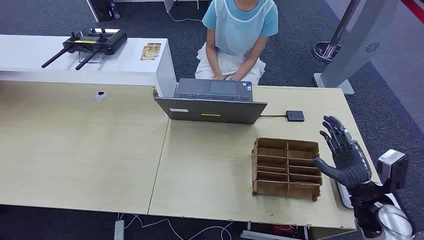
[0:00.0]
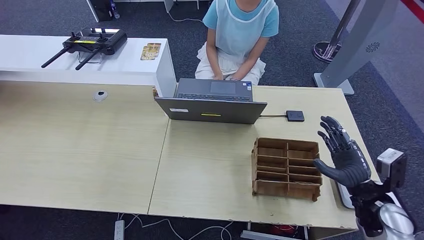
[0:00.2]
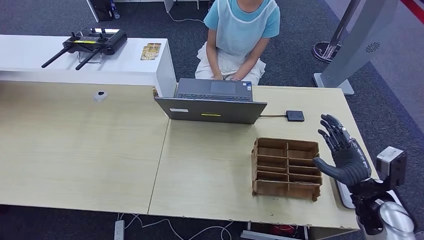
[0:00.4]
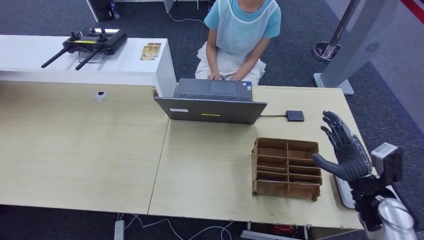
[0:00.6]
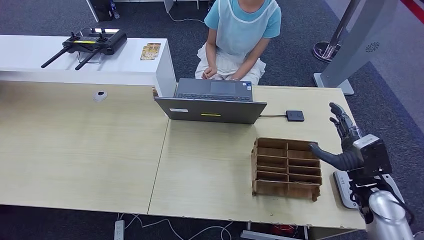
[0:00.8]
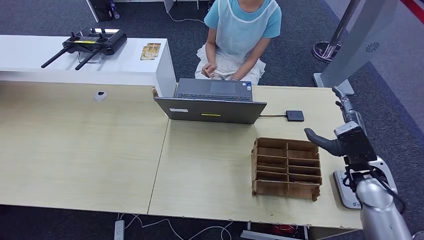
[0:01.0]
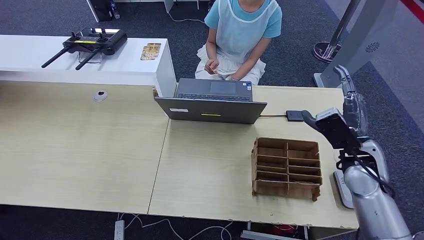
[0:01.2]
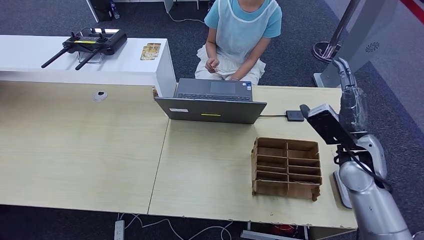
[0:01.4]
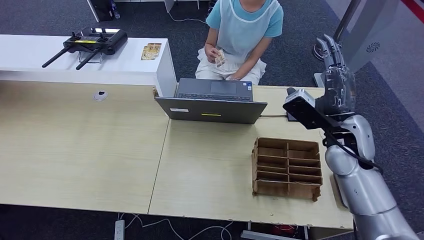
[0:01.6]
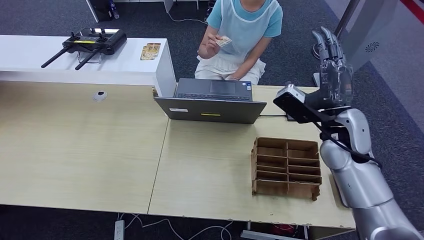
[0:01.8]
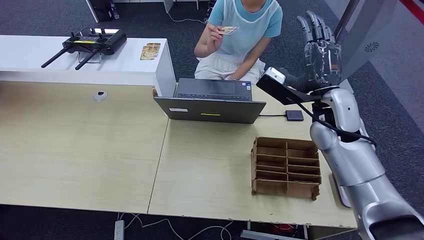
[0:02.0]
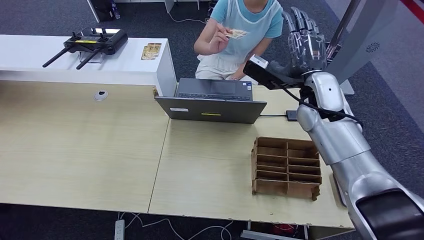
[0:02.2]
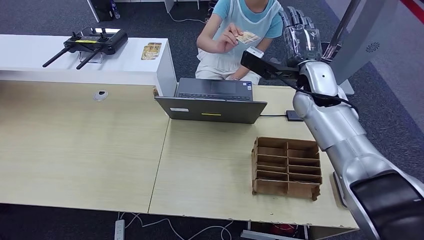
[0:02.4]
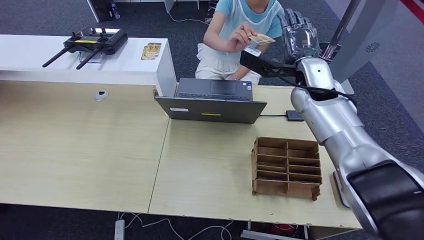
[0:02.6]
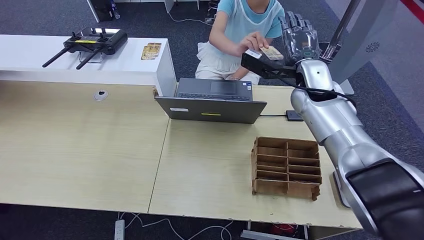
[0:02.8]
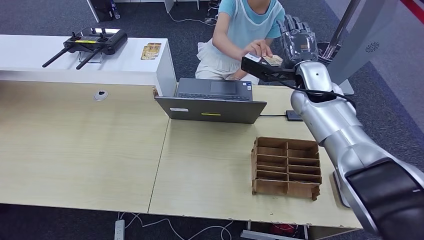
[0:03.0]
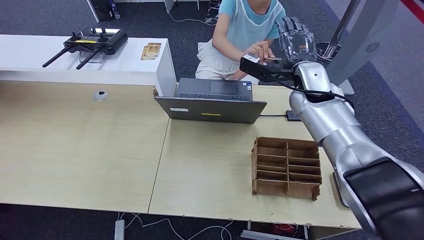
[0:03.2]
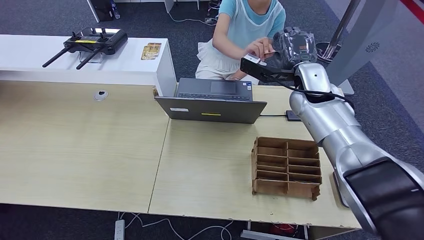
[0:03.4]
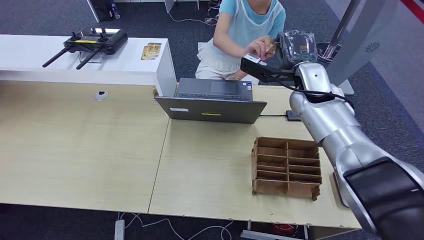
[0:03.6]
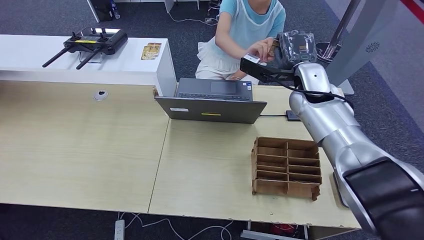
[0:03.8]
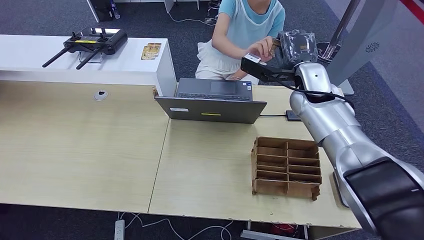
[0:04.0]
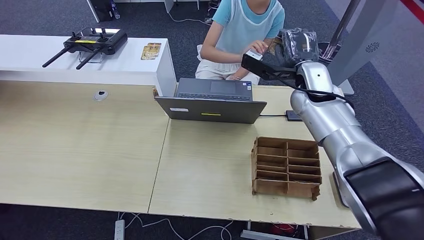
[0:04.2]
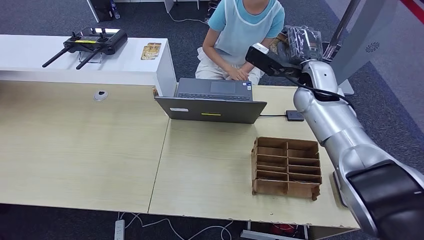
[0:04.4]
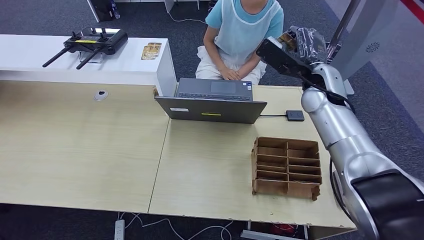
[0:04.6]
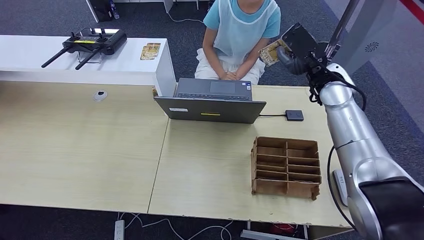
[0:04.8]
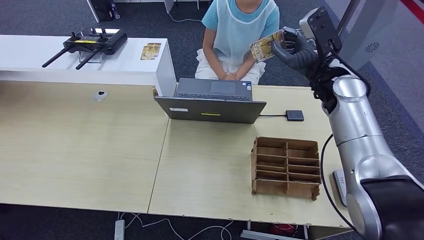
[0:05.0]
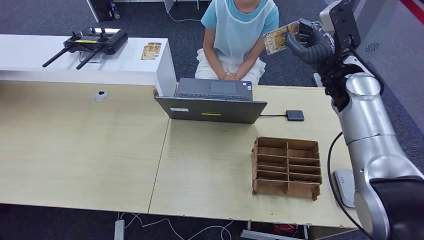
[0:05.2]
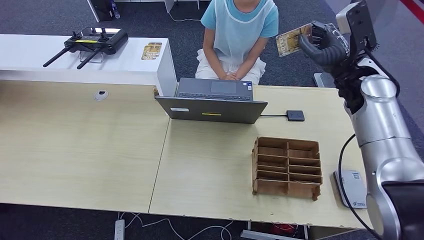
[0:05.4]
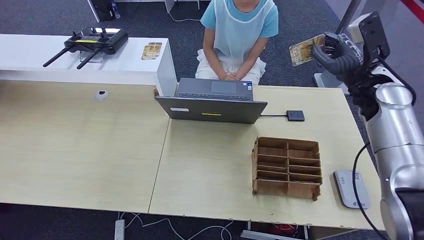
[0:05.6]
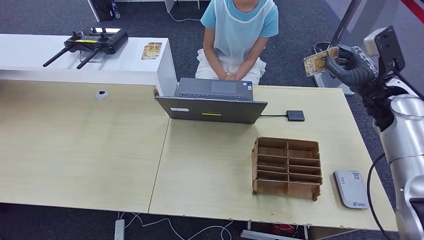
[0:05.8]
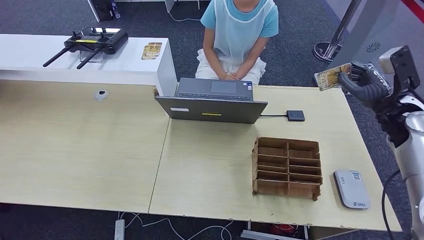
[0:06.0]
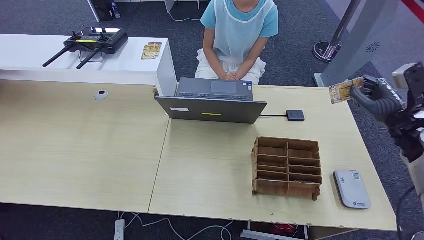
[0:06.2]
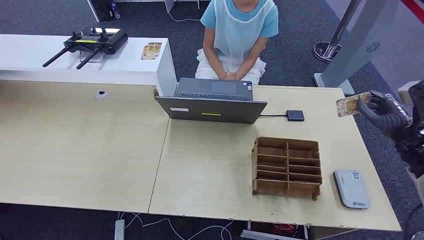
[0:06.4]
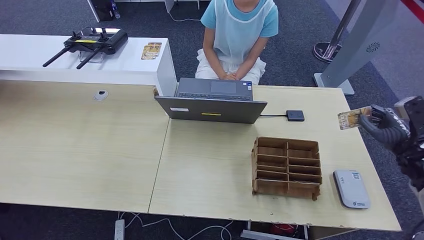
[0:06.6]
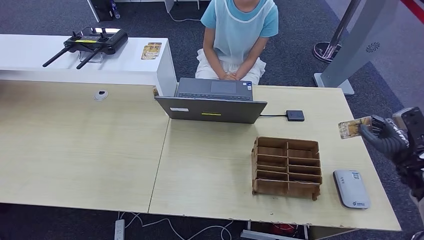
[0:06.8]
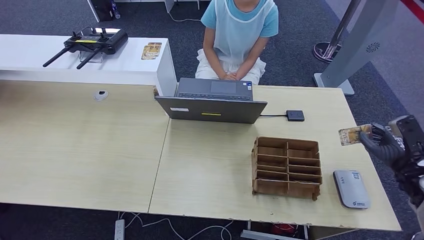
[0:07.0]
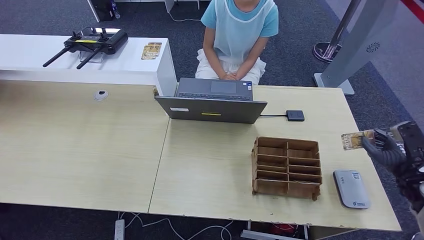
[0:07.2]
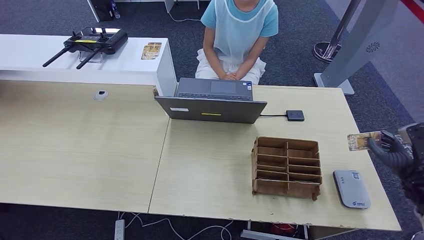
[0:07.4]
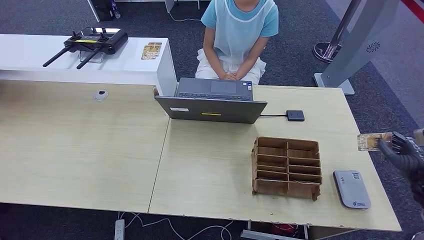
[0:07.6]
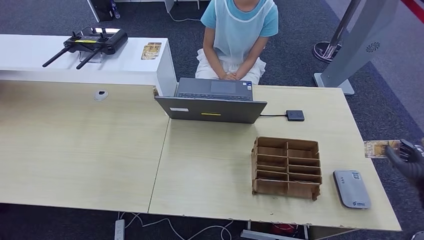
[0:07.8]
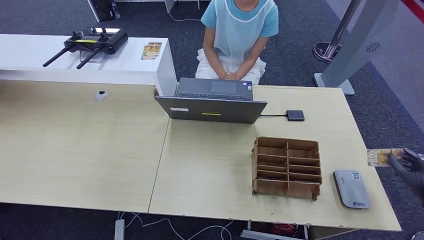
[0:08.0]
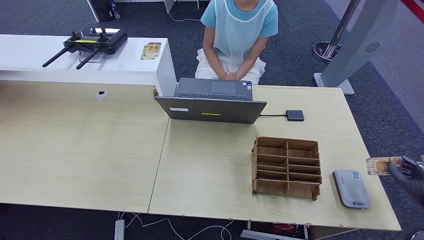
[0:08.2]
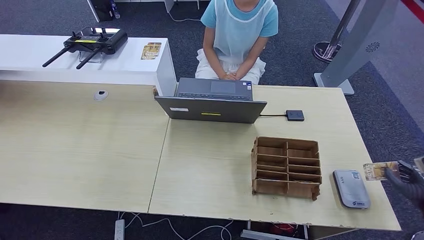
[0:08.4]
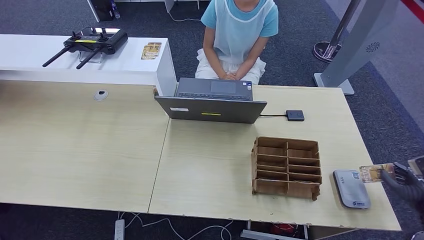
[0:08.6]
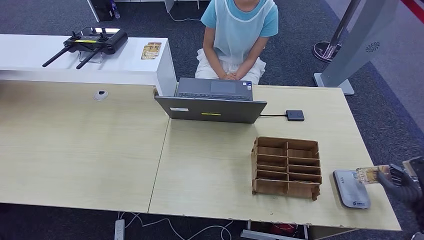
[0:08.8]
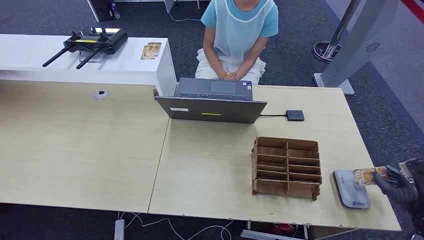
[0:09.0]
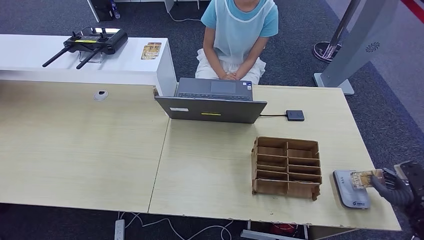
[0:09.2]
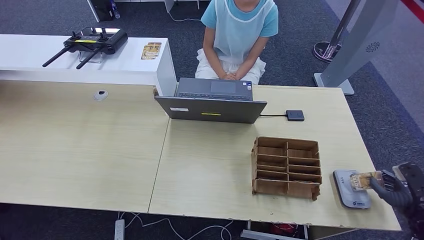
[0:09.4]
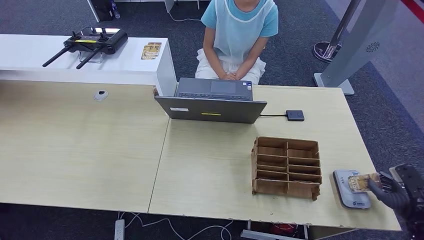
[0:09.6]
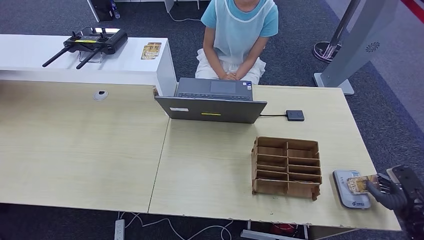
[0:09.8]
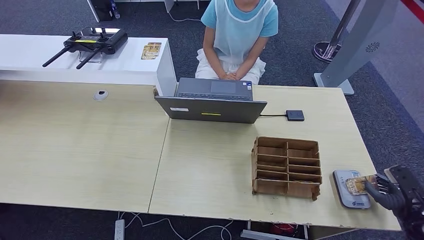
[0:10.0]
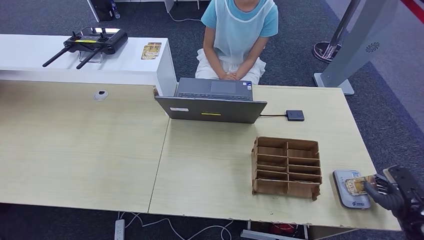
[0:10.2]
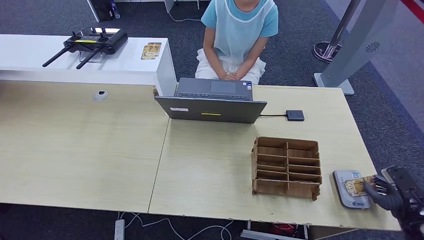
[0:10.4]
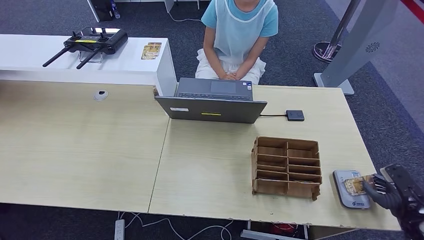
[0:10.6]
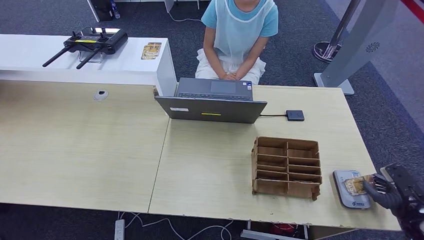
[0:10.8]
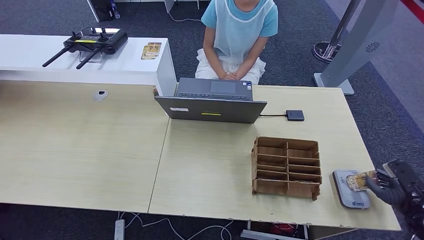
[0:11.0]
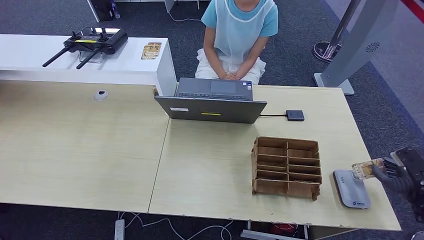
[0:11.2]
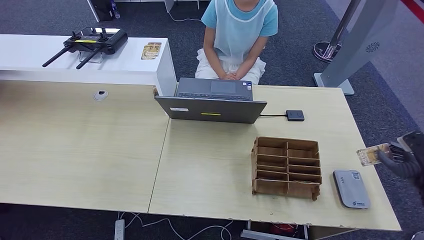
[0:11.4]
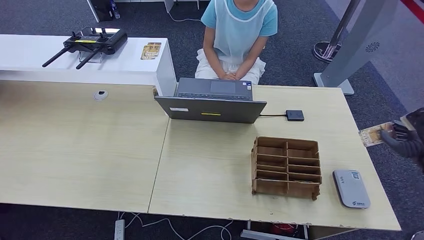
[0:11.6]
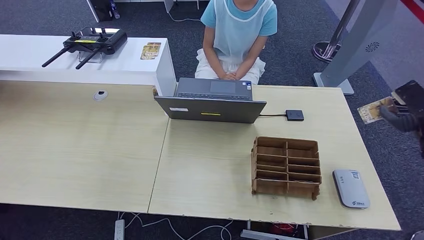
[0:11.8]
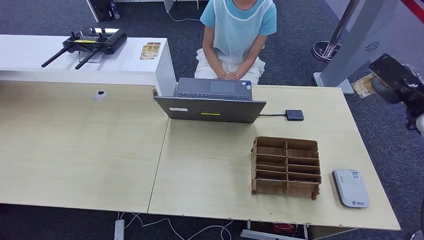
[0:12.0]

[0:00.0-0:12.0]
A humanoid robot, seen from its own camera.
Step, 0:00.0 to 0:05.4: Take the ID card from the person's hand.
Step, 0:05.6 to 0:09.8: Place the ID card on the card reader.
0:01.6 to 0:03.0: The right hand moves forward and to the left, some 15 cm.
0:03.0 to 0:04.4: The hands make only small movements.
0:04.4 to 0:06.0: The right hand is displaced to the right by about 20 cm.
0:06.0 to 0:07.6: The right hand shifts about 20 cm backward, downward and to the right.
0:07.6 to 0:09.0: The right hand moves backward, some 5 cm.
0:09.0 to 0:10.4: The hands make only small movements.
0:10.4 to 0:12.0: The right hand is displaced upward and forward by roughly 30 cm.

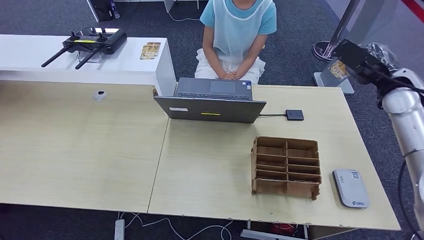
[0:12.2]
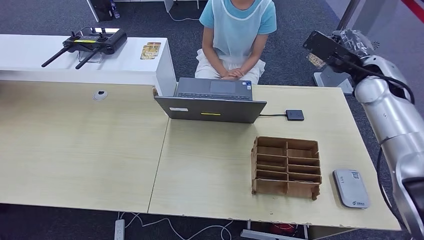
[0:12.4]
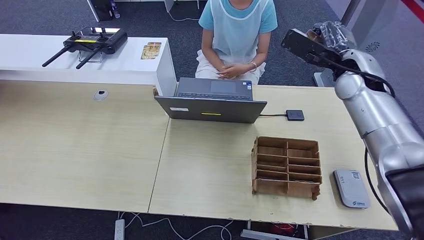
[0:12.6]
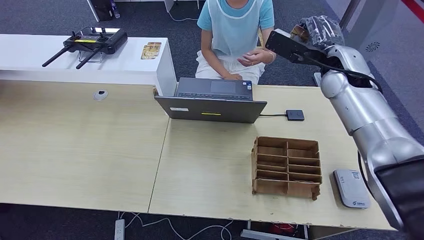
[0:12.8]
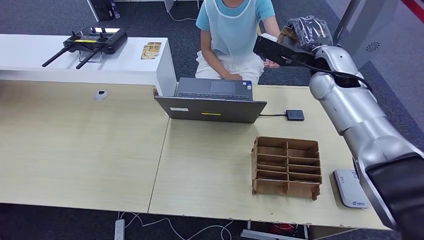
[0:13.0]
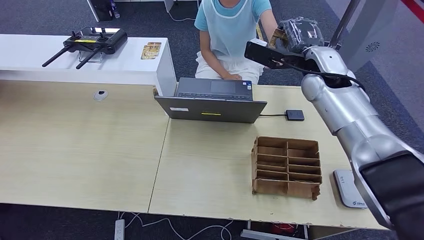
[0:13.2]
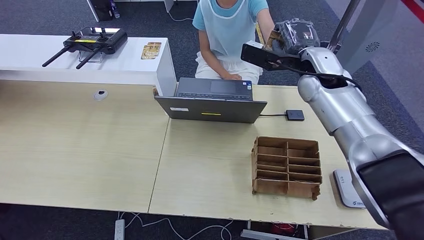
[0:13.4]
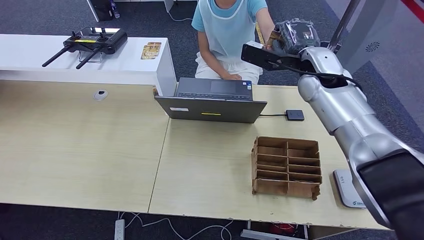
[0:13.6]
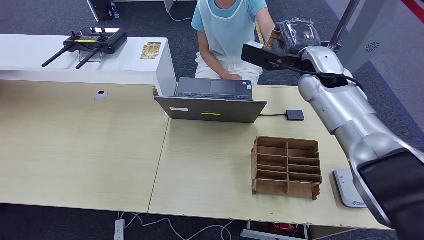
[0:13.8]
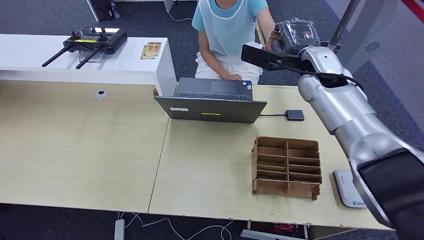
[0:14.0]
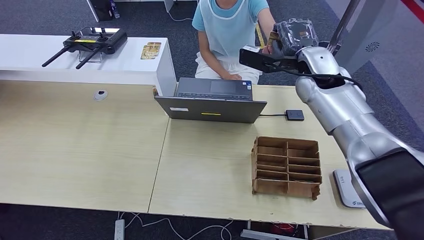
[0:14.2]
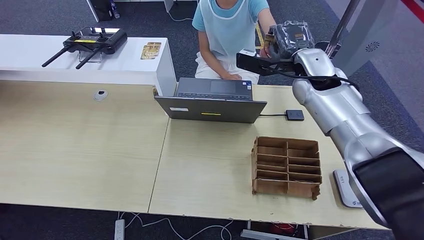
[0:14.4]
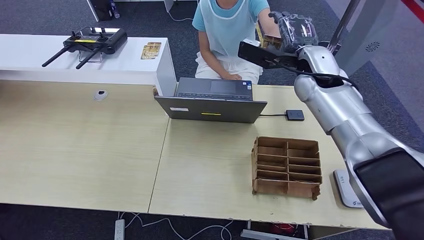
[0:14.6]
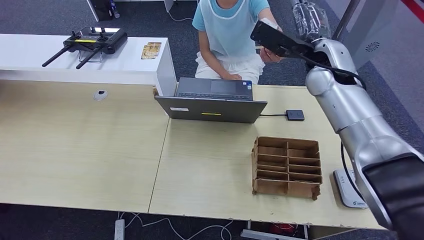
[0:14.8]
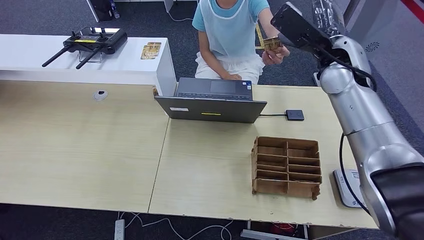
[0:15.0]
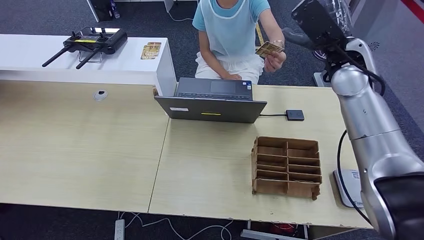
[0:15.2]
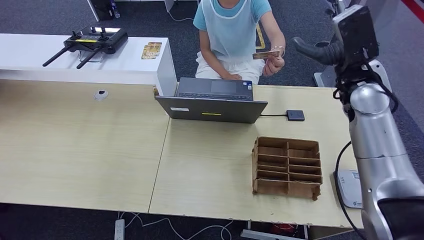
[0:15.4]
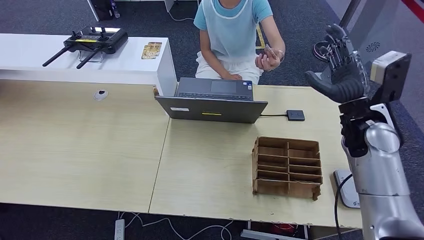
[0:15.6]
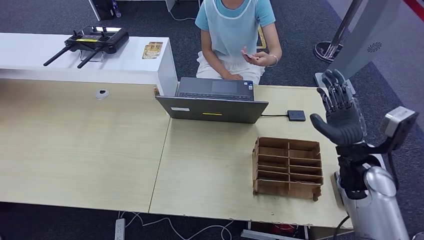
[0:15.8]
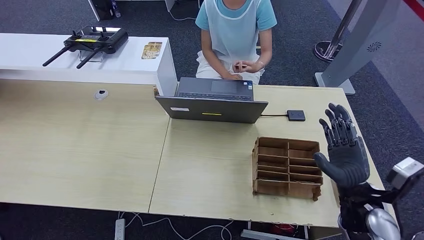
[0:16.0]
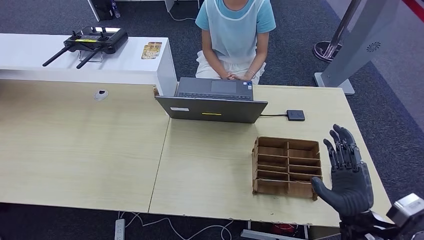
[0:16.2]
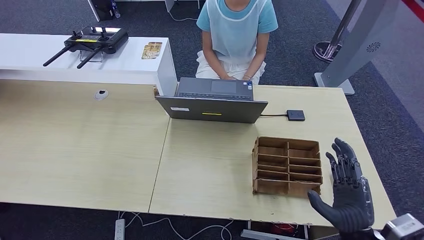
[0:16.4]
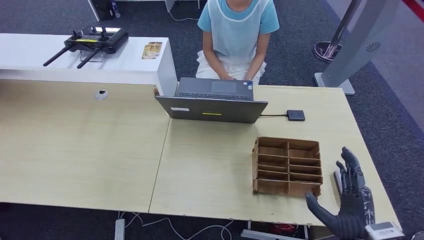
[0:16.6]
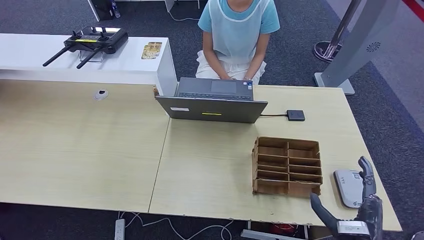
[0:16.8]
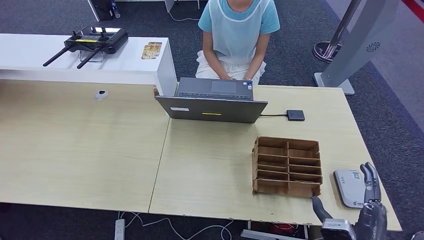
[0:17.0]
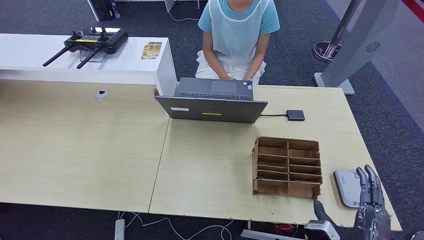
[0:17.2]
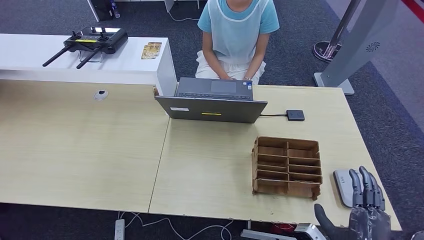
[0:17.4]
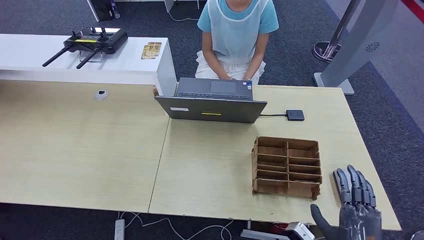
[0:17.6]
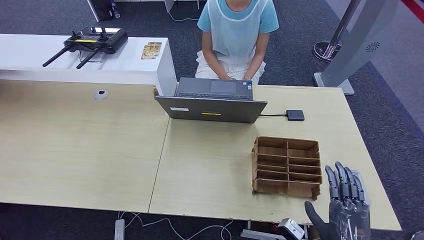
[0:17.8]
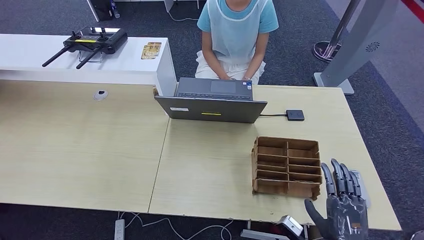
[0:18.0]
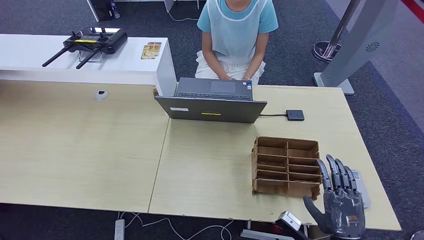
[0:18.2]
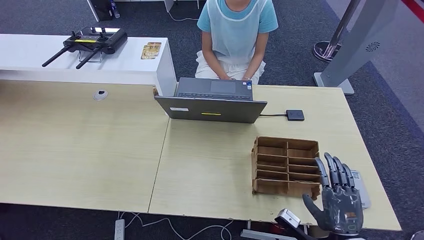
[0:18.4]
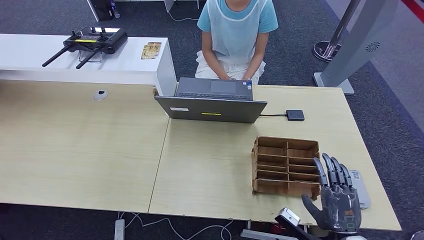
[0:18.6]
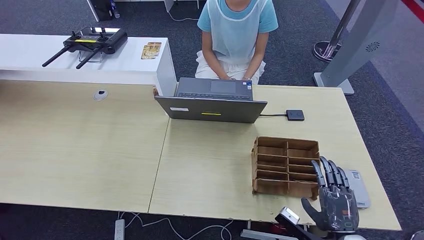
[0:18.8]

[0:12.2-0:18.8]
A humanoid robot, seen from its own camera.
Step, 0:12.2 to 0:15.4: Hand the ID card to the person.
0:12.2 to 0:13.8: The right hand heads to the left, covering roughly 20 cm.
0:13.8 to 0:15.4: The right hand goes some 10 cm to the right and backward.
0:15.4 to 0:17.2: The right hand shifts roughly 40 cm backward and downward.
0:17.2 to 0:18.8: The right hand goes approximately 5 cm forward.
